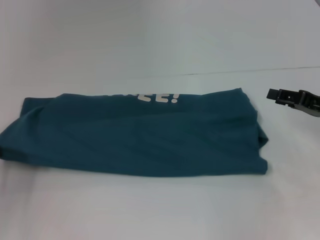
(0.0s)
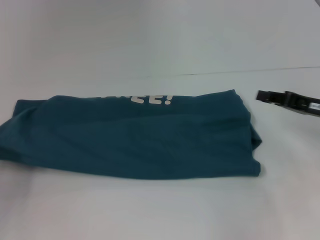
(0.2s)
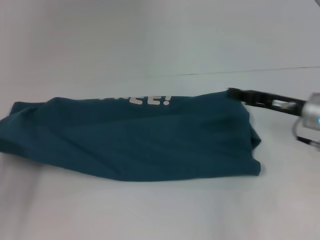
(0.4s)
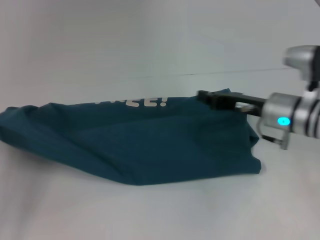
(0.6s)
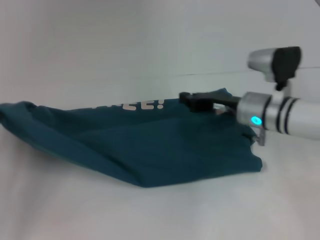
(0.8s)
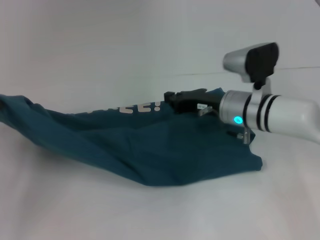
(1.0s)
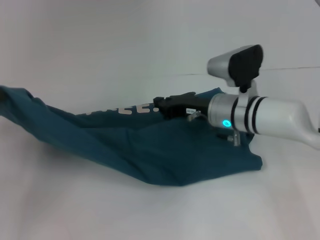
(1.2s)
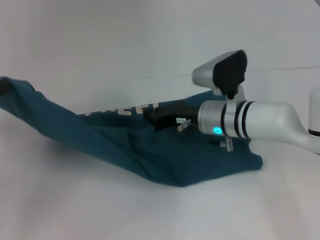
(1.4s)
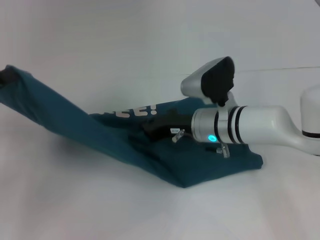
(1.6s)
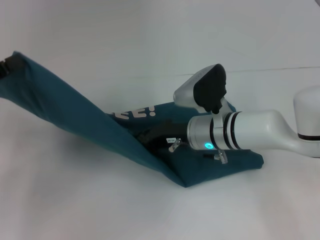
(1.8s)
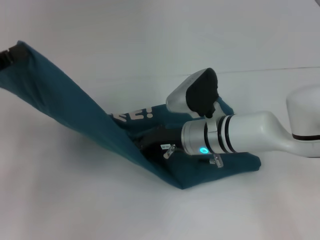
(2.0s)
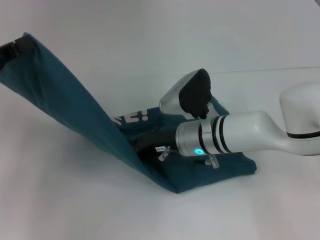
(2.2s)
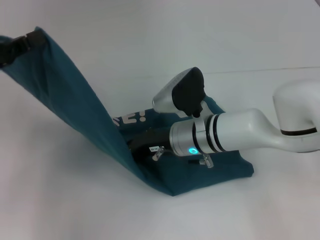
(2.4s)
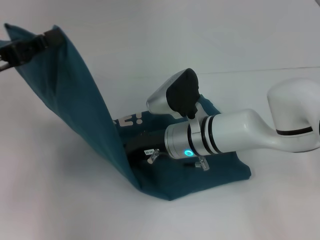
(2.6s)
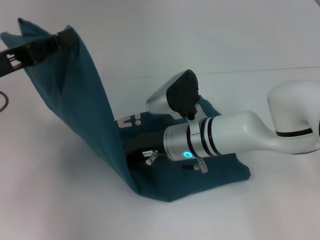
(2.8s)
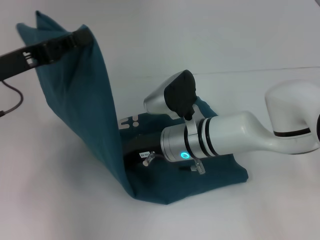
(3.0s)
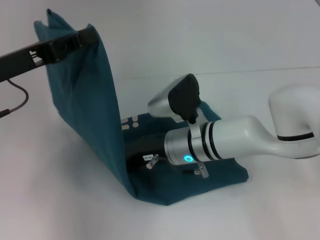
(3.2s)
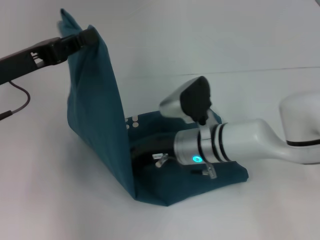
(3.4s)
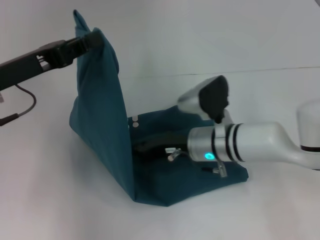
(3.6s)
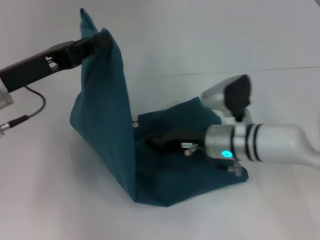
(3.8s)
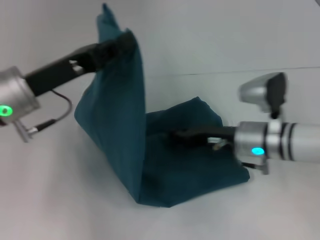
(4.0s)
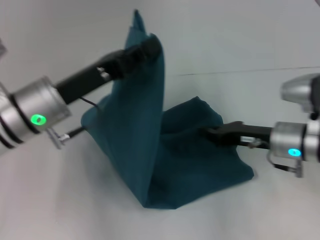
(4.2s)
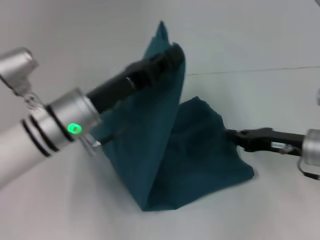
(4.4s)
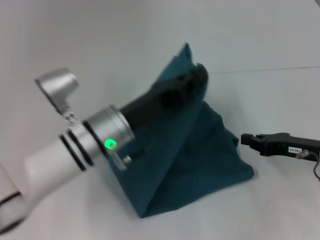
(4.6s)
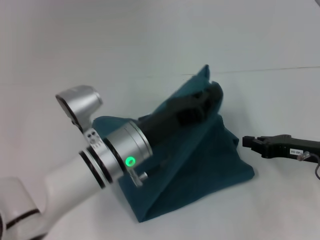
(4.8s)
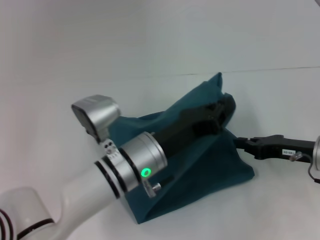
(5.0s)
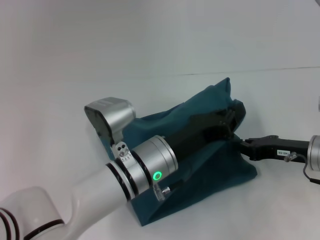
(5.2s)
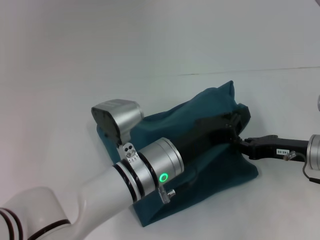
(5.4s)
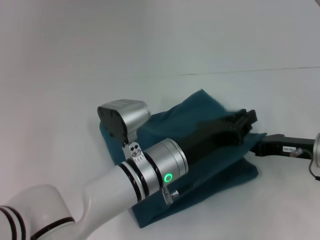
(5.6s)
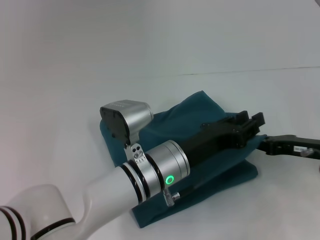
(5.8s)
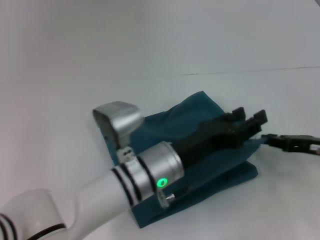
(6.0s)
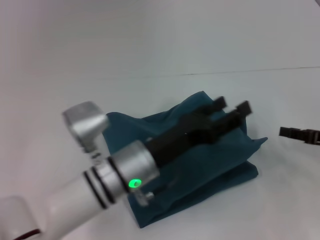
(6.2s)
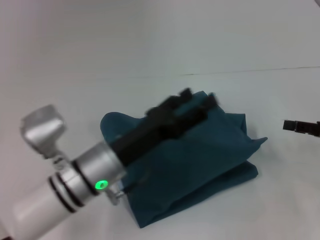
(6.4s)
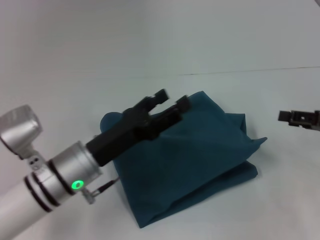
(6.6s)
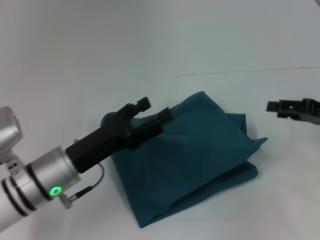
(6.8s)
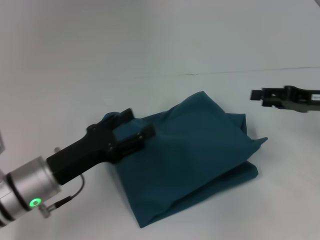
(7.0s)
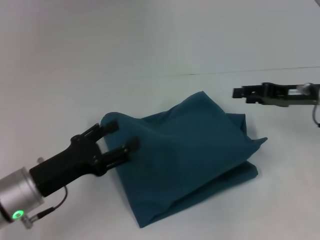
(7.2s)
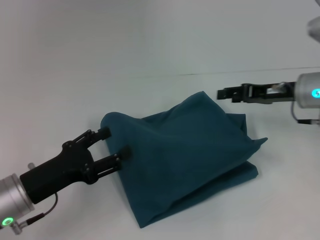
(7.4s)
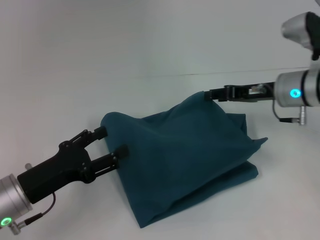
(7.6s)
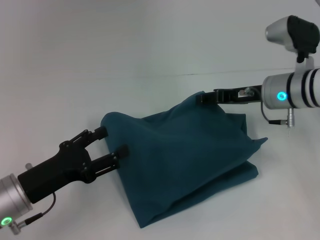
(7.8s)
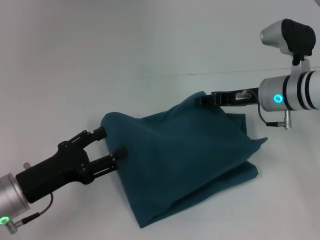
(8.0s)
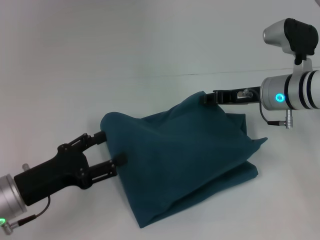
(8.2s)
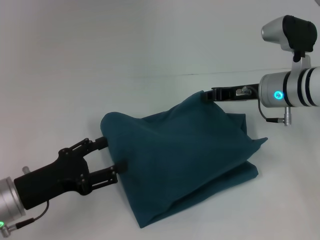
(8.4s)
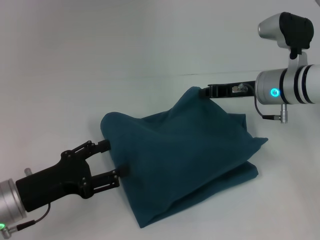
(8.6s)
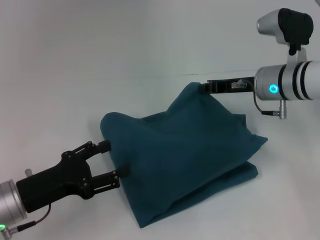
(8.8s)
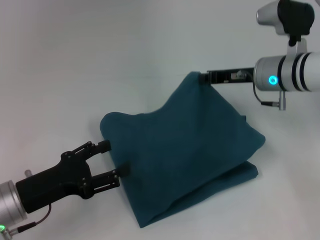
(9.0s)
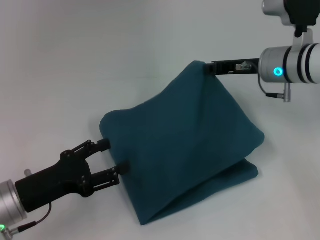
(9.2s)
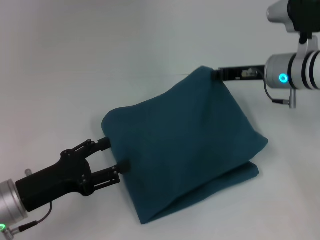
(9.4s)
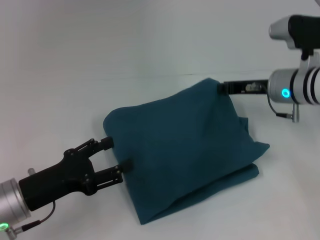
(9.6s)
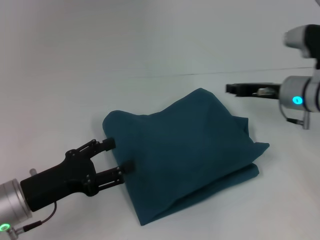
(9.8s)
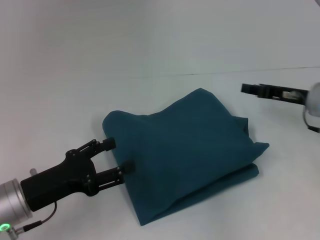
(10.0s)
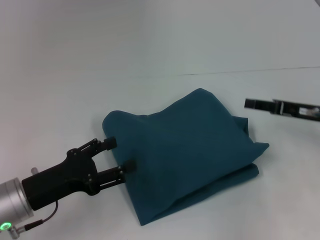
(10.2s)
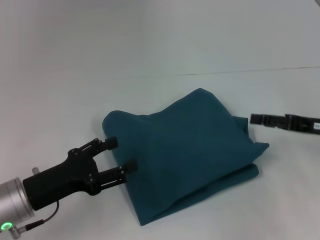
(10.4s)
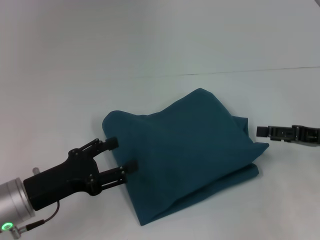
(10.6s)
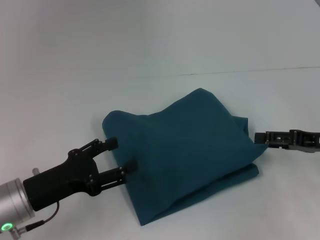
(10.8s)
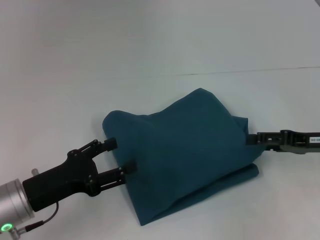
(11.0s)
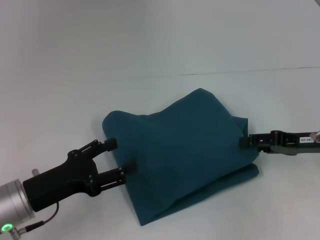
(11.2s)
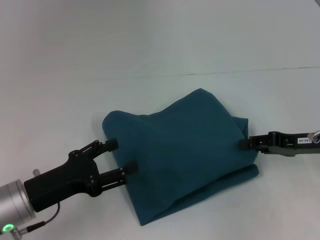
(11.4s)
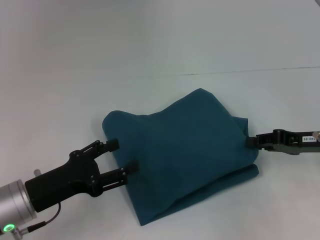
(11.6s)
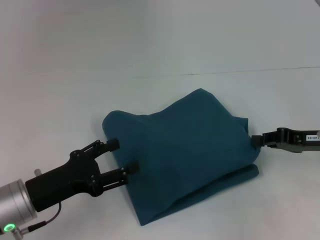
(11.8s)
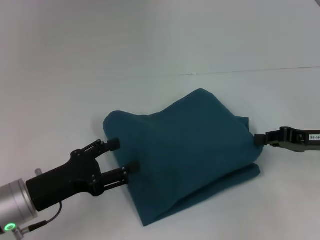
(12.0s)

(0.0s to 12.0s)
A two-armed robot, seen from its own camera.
Step, 0.0s - 3.0s: Press the middle of the clothes with your right hand.
Step, 3.2s - 5.8s: Fold the clothes to the left.
0.0s - 1.6s: The left gripper shifts about 10 cm upward; the right gripper is displaced to the left by approximately 25 cm, and closes.
1.6s - 3.0s: The right gripper moves to the left, roughly 5 cm, while the left gripper goes some 10 cm to the right and forward.
3.0s - 4.4s: The right gripper is displaced to the right by some 20 cm, while the left gripper moves to the right and downward, approximately 15 cm.
4.4s - 6.0s: The right gripper moves to the right, approximately 5 cm. Meanwhile the left gripper heads to the right, backward and downward, covering approximately 15 cm, and opens up.
6.0s - 7.6s: The left gripper heads to the left, covering some 20 cm, and opens its fingers. The right gripper shifts approximately 15 cm forward, to the left and upward, and opens its fingers.
7.6s - 9.0s: The right gripper closes up.
9.0s - 10.4s: The right gripper goes roughly 15 cm to the right and backward, and opens.
10.4s - 12.0s: The right gripper closes up.

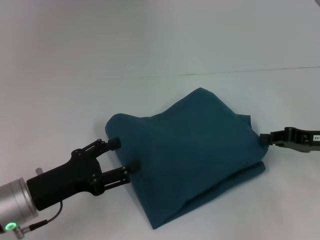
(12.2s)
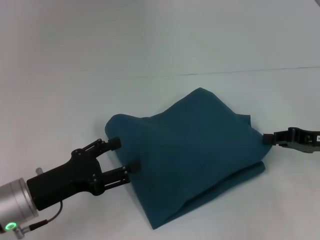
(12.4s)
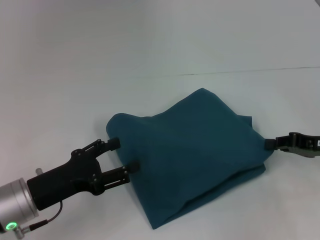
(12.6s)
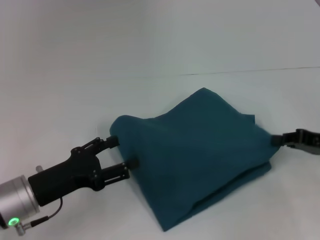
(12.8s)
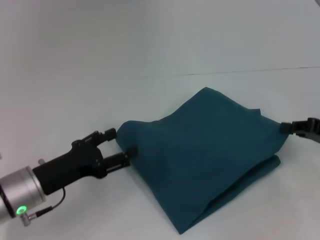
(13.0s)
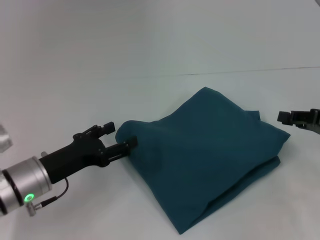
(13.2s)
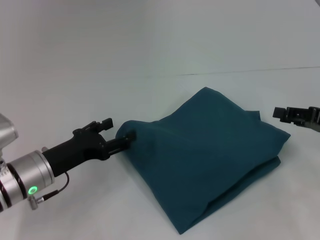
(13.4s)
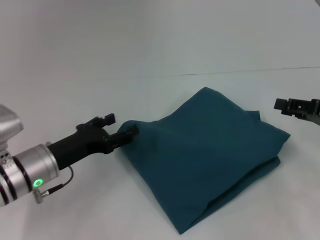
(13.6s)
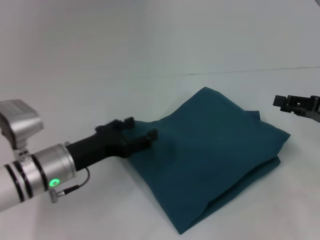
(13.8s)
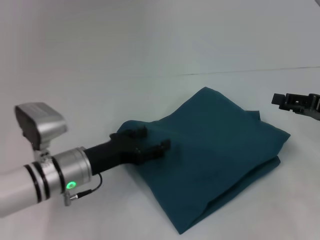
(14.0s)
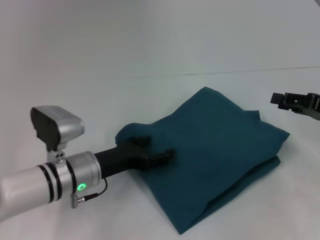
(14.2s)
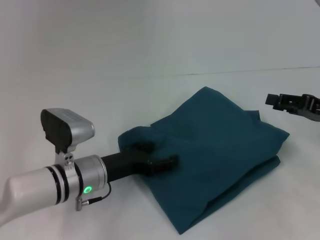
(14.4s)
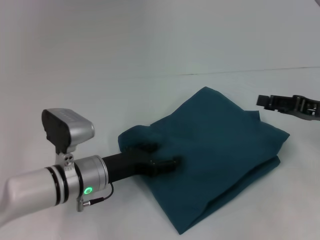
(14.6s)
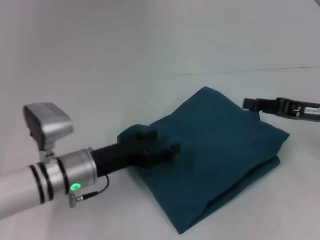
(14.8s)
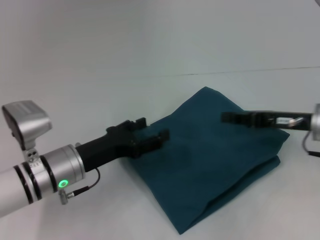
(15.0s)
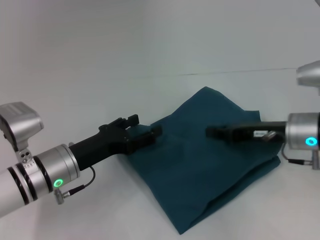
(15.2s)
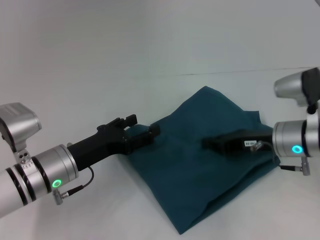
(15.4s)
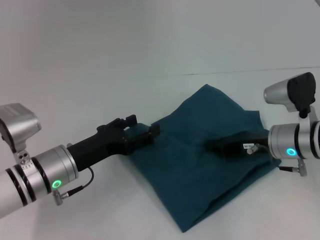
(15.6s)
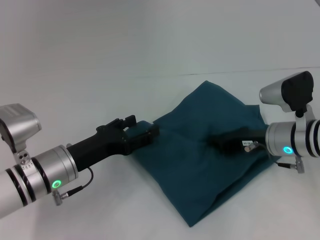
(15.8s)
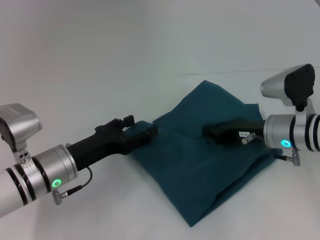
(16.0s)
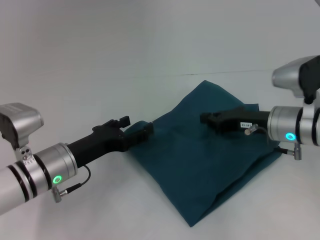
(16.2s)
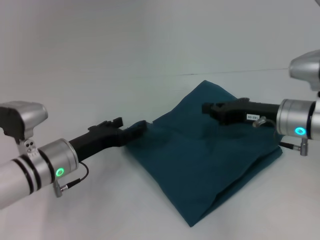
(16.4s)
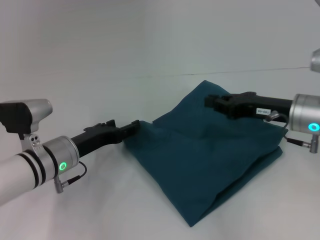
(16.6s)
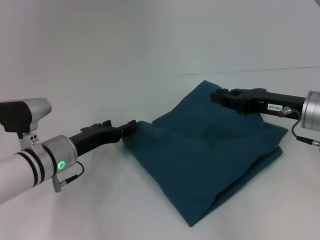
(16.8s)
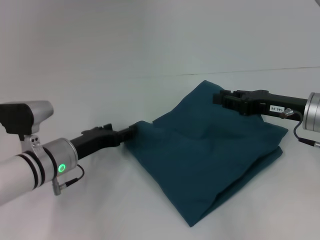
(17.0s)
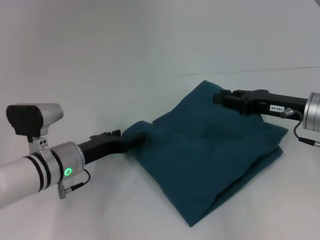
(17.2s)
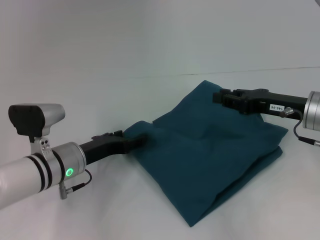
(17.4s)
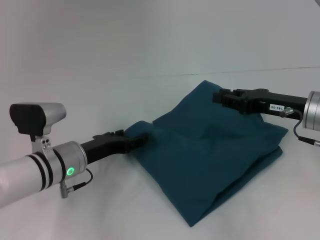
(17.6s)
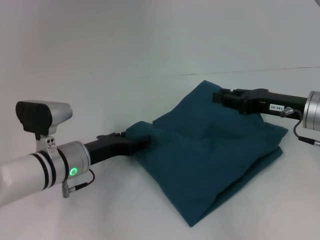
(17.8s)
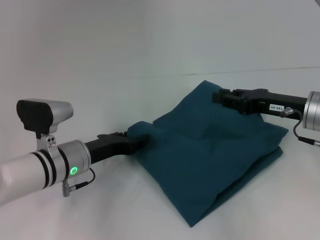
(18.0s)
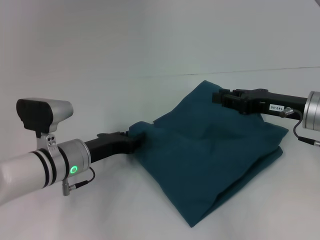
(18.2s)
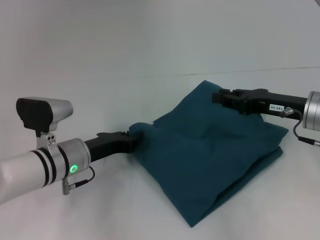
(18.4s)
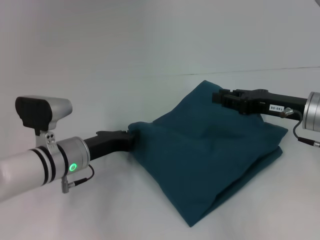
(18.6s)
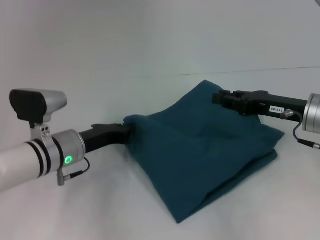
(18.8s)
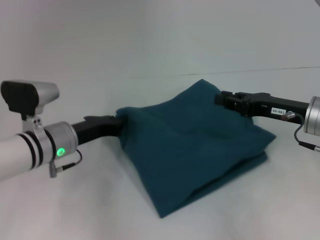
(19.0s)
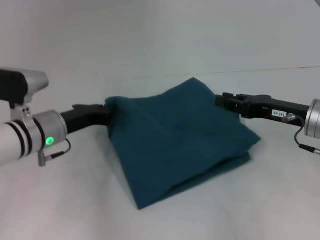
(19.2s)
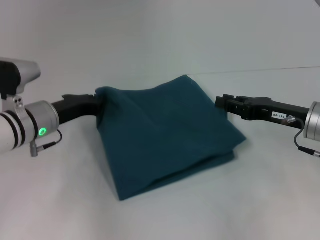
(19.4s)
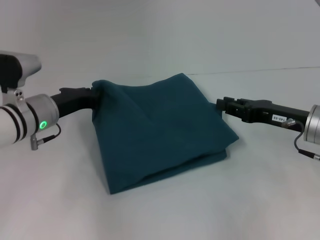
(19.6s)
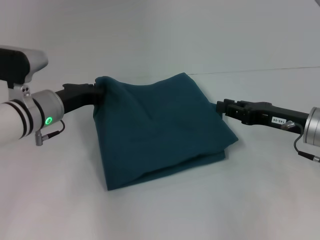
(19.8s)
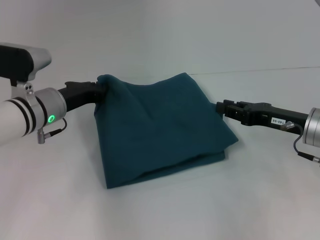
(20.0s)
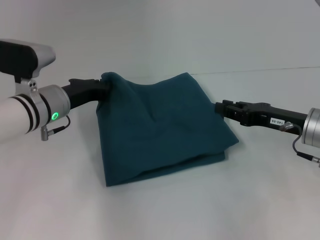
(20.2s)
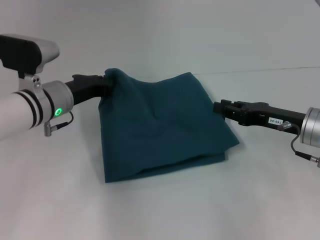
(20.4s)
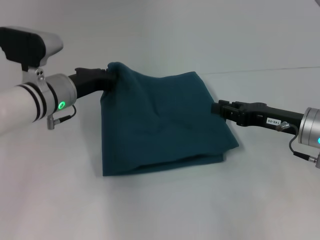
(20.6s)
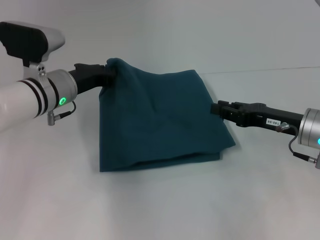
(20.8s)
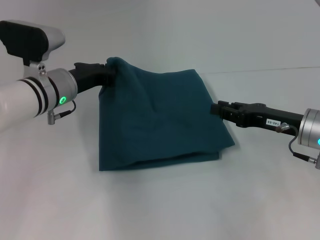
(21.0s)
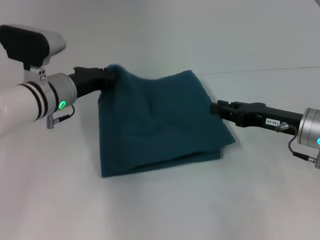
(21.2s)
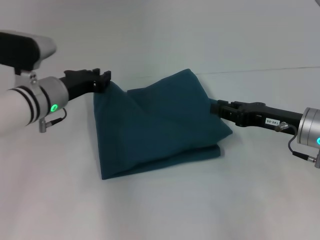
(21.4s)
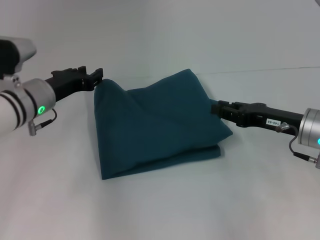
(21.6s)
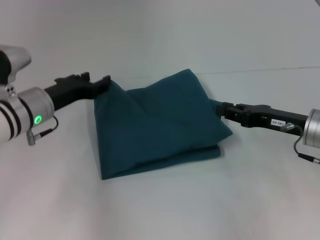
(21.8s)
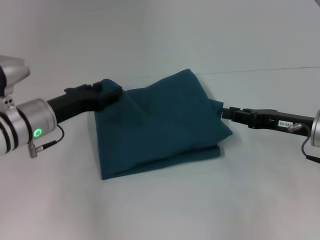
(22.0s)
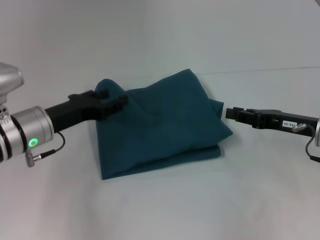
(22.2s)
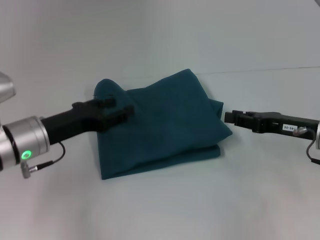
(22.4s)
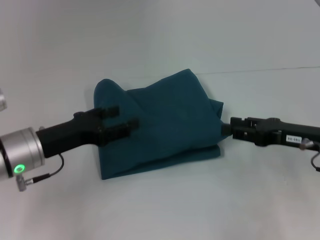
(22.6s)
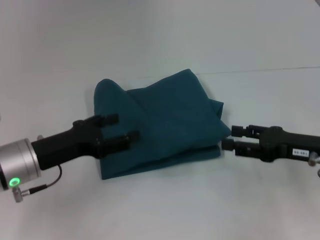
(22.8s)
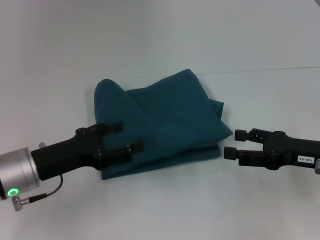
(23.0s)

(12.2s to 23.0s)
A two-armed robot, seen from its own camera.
12.2s - 13.8s: The right gripper opens up; the left gripper goes approximately 5 cm forward.
13.8s - 15.2s: The right gripper moves to the left, approximately 10 cm.
16.8s - 18.4s: The left gripper closes up.
18.4s - 20.0s: The left gripper shifts about 10 cm upward and forward, and closes its fingers.
20.0s - 21.4s: The grippers move only a little.
21.4s - 23.0s: The left gripper goes about 10 cm backward, and opens its fingers; the right gripper ends up approximately 5 cm from where it was, and opens up.
